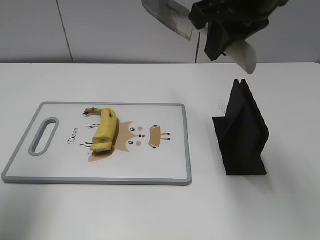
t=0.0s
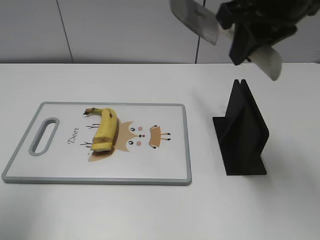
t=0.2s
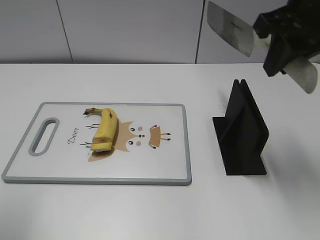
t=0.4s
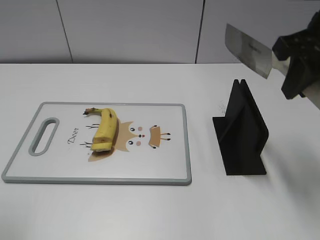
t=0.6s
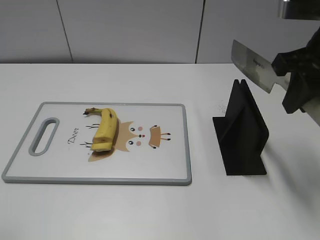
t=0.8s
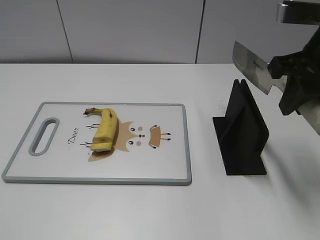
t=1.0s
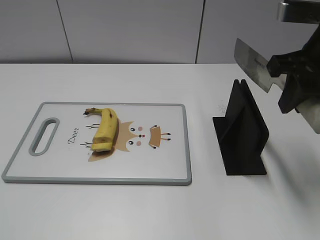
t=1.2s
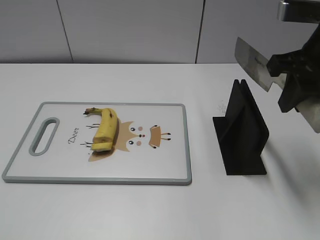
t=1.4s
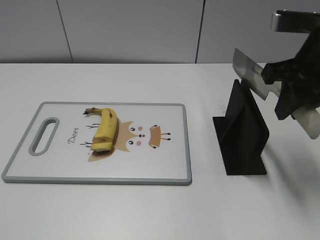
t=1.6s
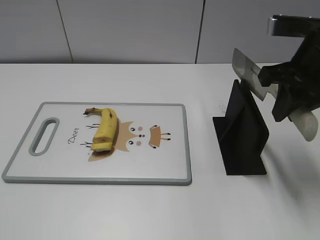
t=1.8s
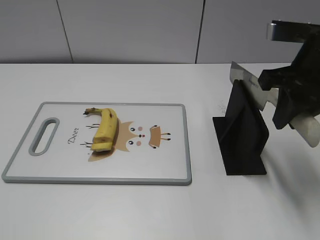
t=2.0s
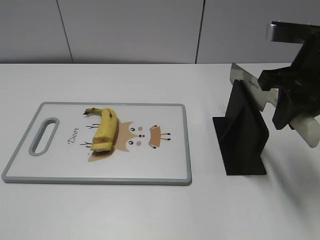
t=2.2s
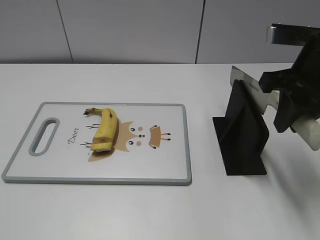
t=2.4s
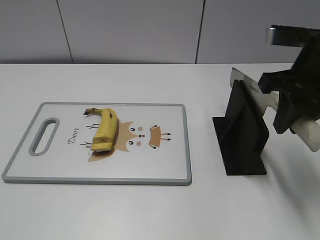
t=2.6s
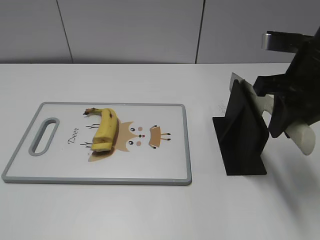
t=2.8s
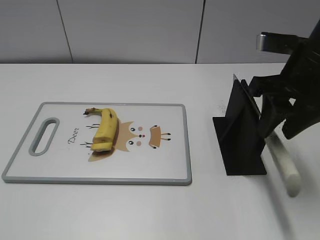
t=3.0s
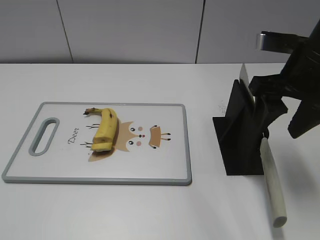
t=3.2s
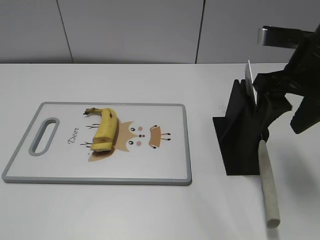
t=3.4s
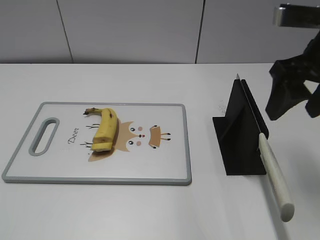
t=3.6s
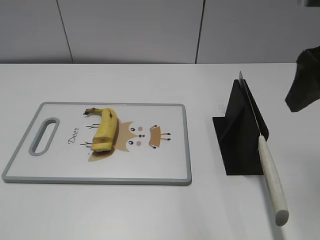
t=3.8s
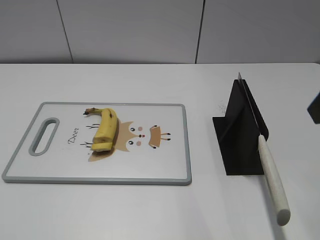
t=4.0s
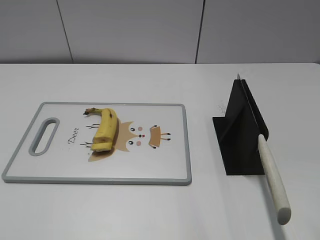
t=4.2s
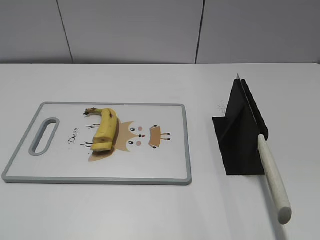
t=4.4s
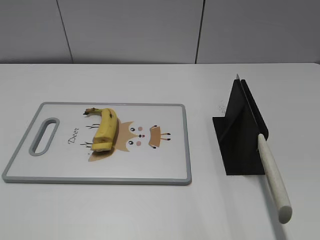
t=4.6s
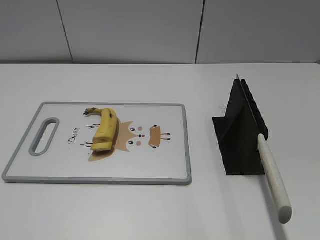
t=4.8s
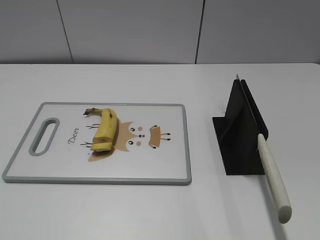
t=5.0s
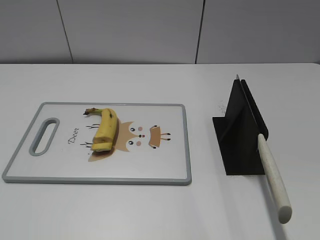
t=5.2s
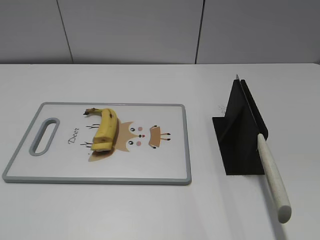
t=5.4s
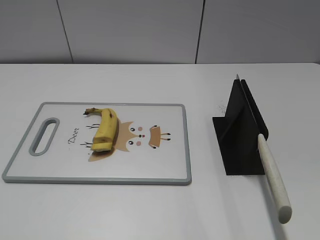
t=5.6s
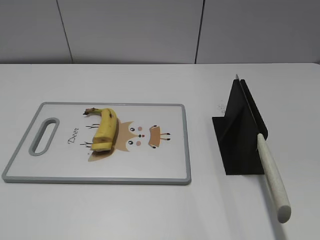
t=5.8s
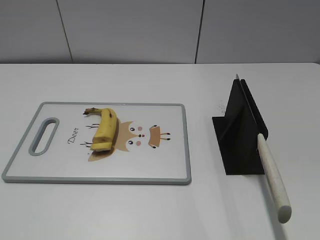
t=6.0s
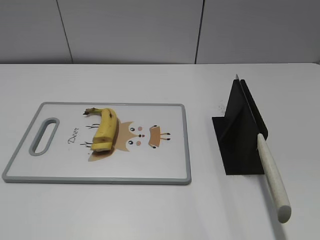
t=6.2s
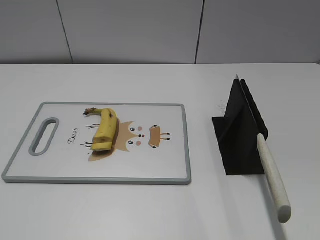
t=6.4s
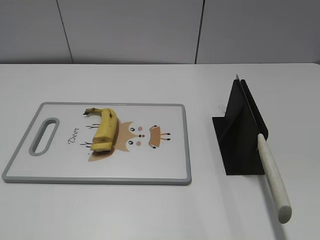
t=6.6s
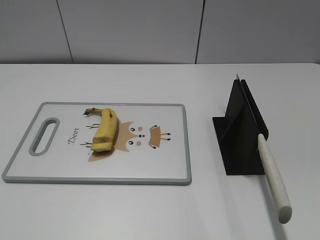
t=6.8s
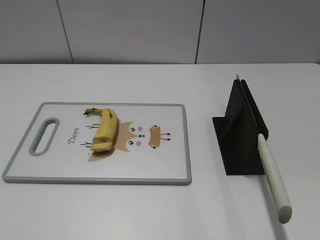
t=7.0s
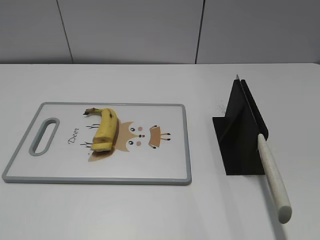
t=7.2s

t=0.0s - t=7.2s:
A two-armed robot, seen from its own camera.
Task of the whole recording: cut banana.
Step, t=0.0s - t=2.6s: Cut the banana with your right hand.
t=0.0s - t=1.4s: The right gripper shifts approximately 10 cm to the right and downward; the left gripper shifts approximately 20 cm backward.
t=1.4s - t=2.8s: There are only small adjustments of the grippers.
t=2.8s - t=4.4s: The right gripper goes approximately 15 cm backward and upward, and opens its fingers.
